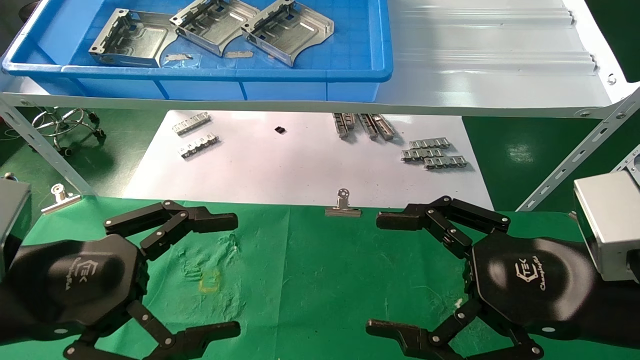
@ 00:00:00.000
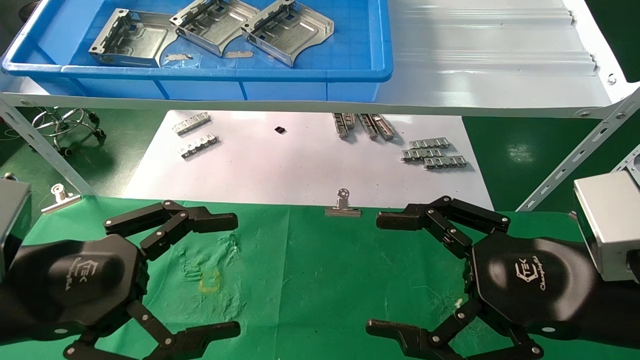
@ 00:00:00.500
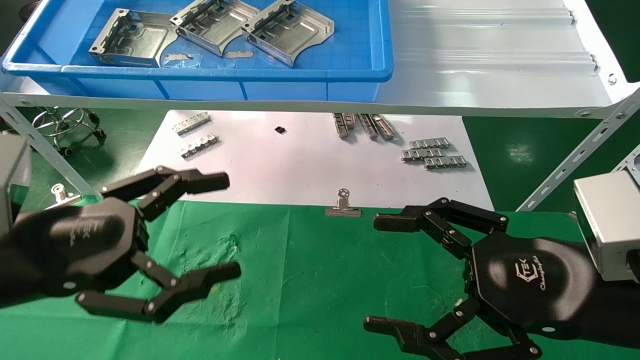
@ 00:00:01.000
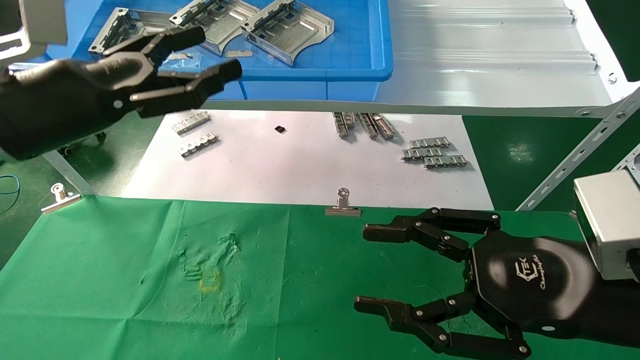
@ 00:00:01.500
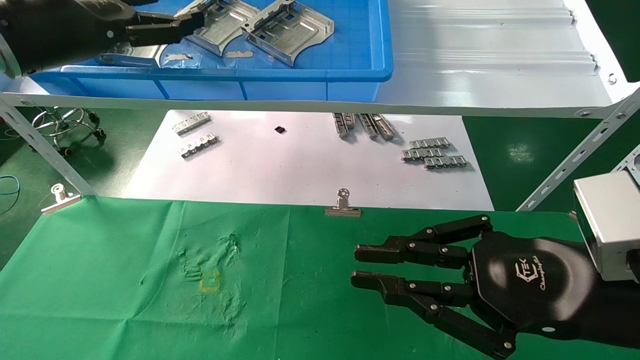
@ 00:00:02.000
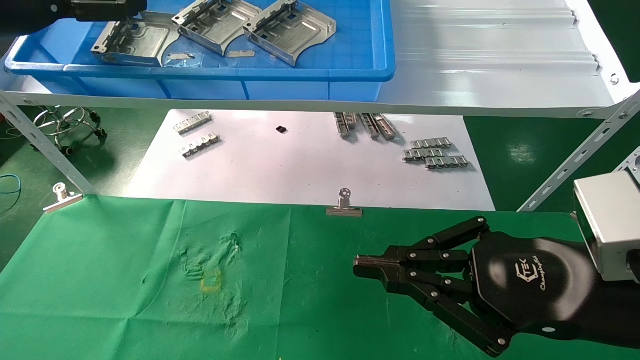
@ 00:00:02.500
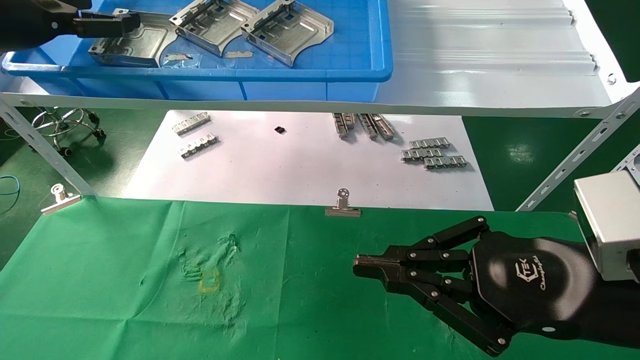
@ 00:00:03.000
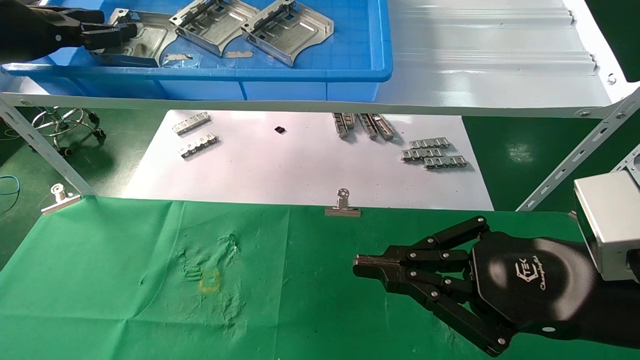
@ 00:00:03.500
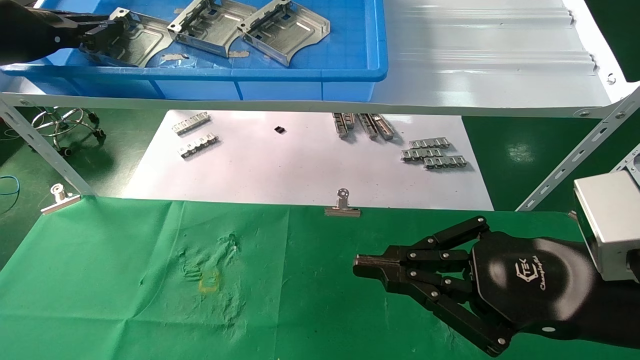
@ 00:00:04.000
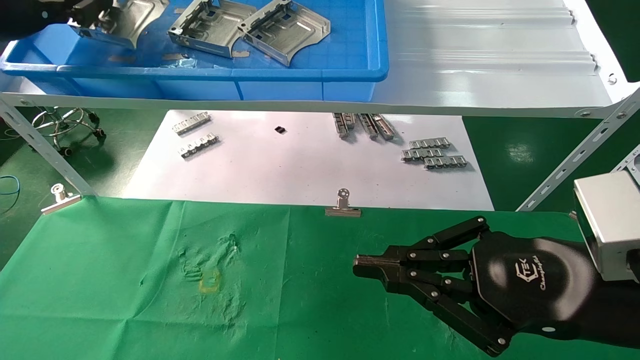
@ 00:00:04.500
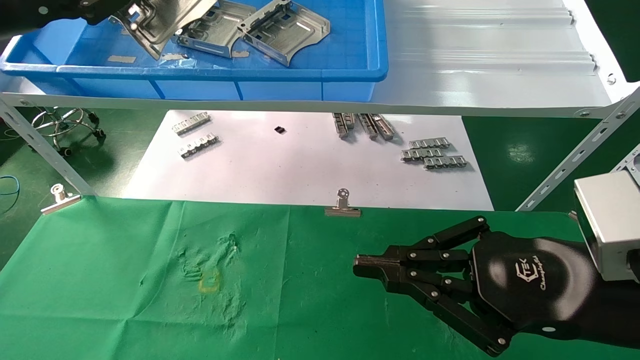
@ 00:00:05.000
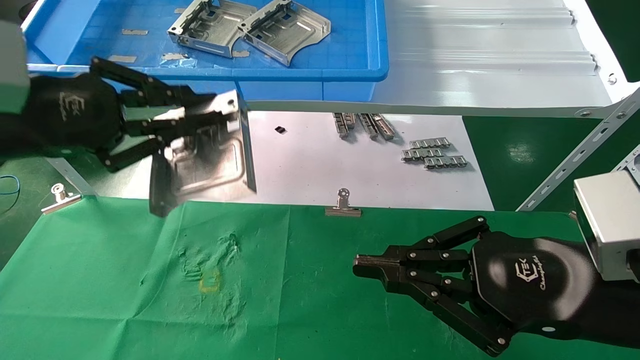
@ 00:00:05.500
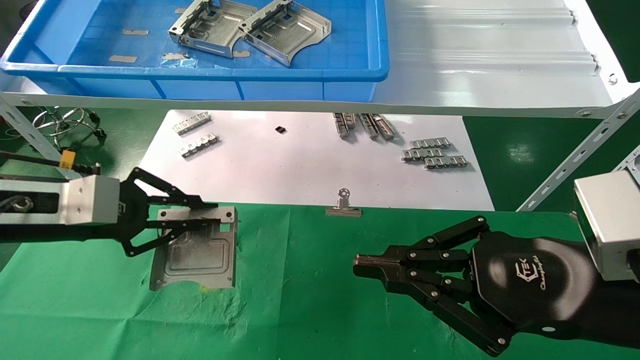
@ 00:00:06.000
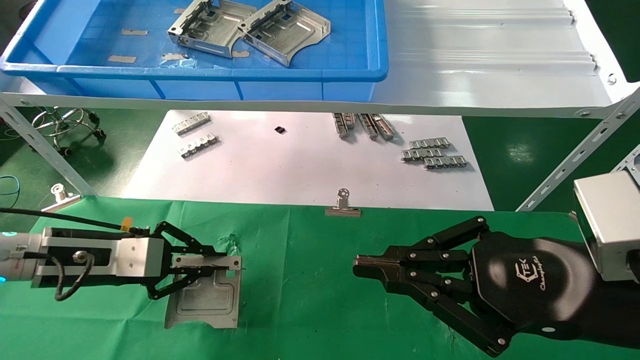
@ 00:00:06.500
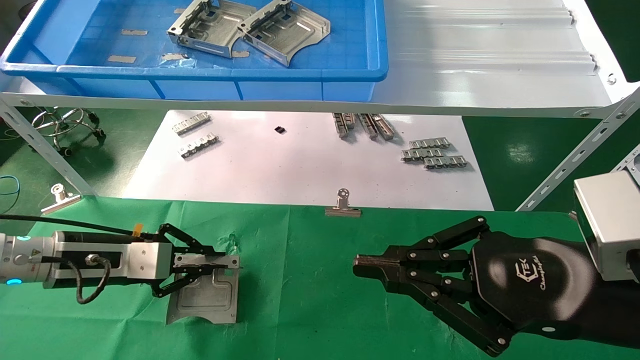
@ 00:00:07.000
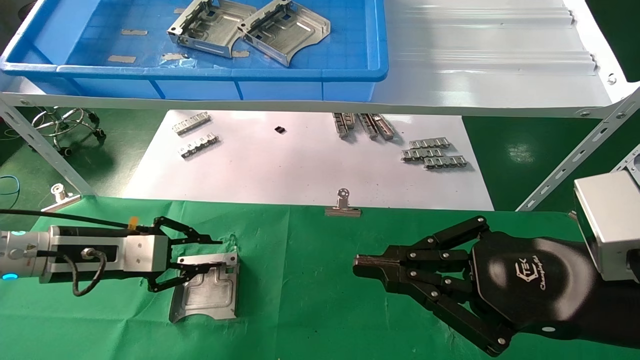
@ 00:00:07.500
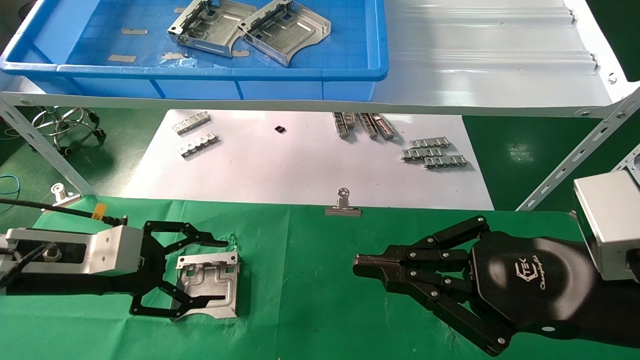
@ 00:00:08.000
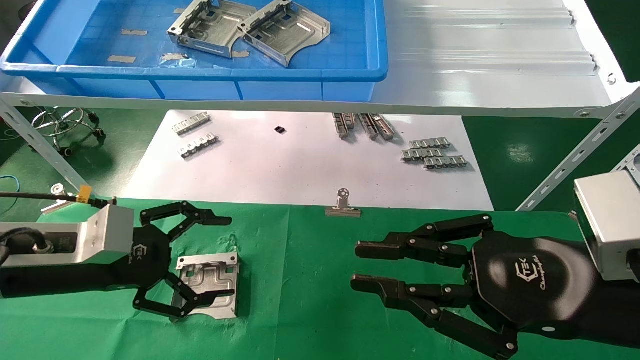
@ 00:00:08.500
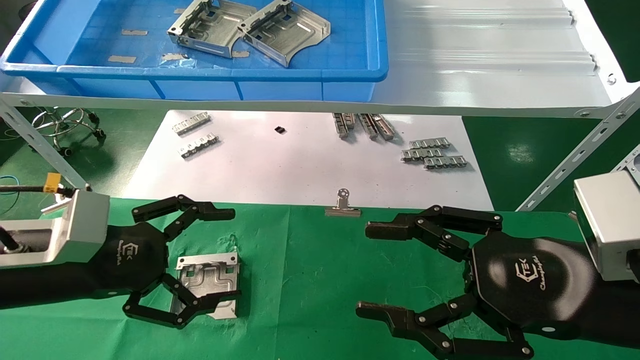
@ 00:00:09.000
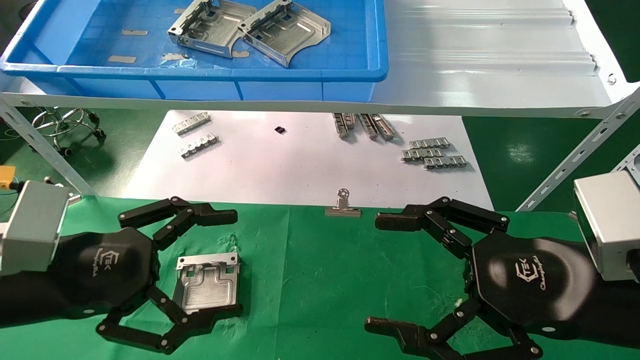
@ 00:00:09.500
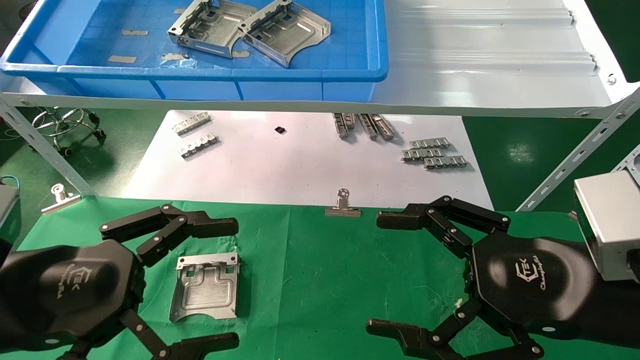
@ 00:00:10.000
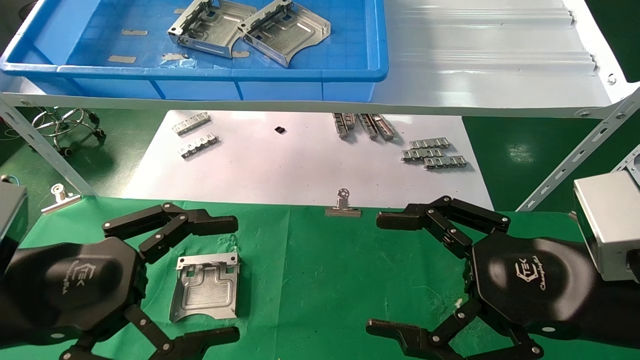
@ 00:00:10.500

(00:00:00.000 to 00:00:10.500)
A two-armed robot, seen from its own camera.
Task of the whole recording: use the mechanical arm to pick up the parts and place them on the table.
Step, 00:00:01.500 - 00:00:04.000: Pick up the hard drive bracket from the feeding area.
Step, 00:00:04.500 - 00:00:07.000: Place the hard drive bracket into the box.
00:00:00.000 - 00:00:02.000: The left gripper heads upward and forward, covering roughly 25 cm; the right gripper closes.
00:00:02.000 - 00:00:04.000: The left gripper shifts approximately 5 cm to the left, and closes up.
00:00:04.000 - 00:00:06.500: The left gripper shifts roughly 25 cm downward.
00:00:06.500 - 00:00:08.500: The left gripper changes place by about 5 cm, and opens up.
00:00:08.500 - 00:00:10.500: The right gripper opens; the left gripper is displaced backward by some 10 cm.
